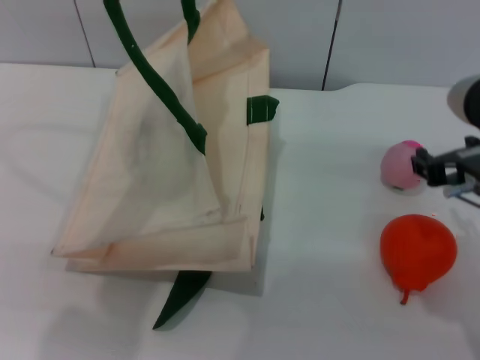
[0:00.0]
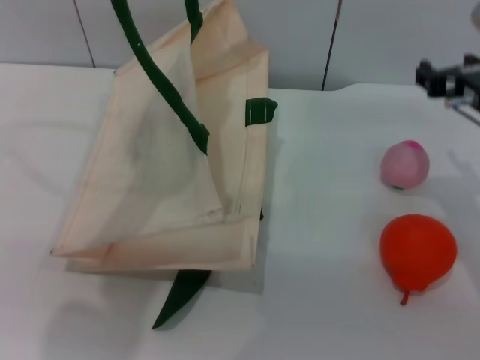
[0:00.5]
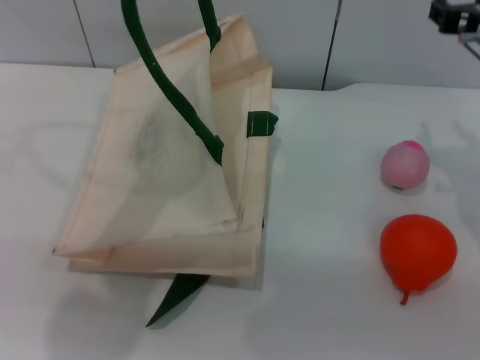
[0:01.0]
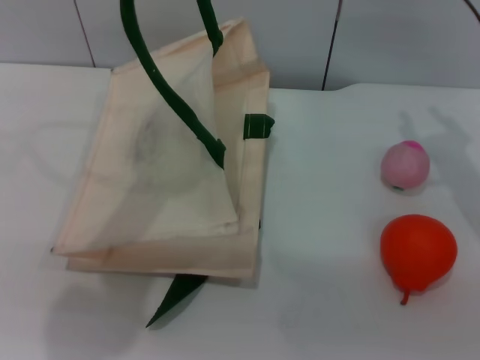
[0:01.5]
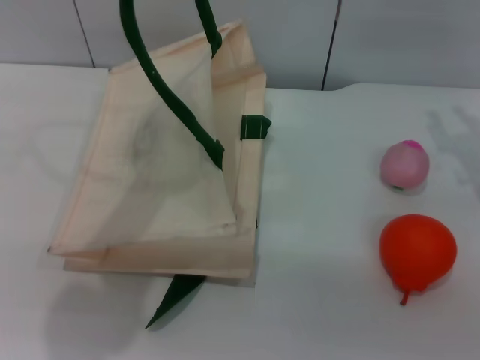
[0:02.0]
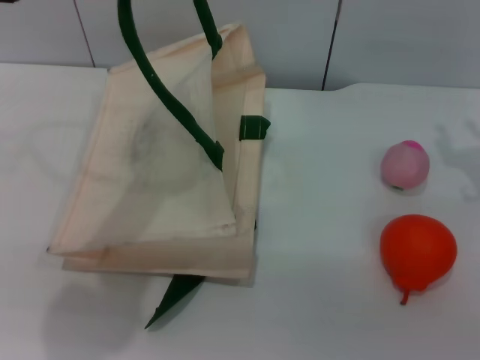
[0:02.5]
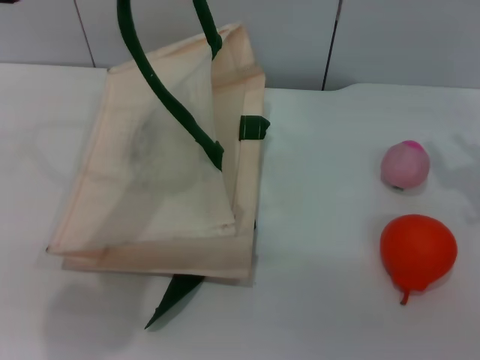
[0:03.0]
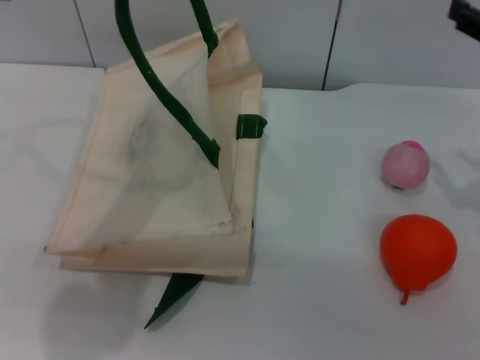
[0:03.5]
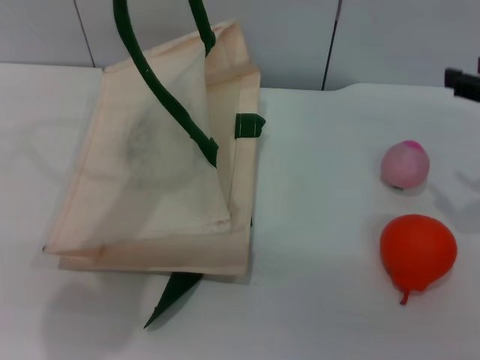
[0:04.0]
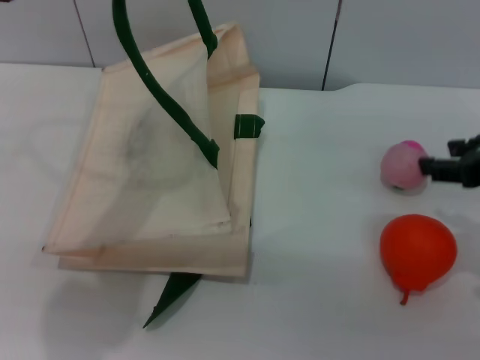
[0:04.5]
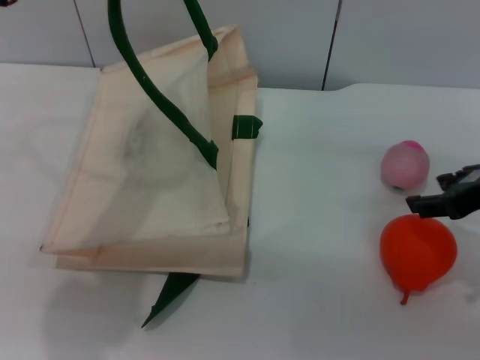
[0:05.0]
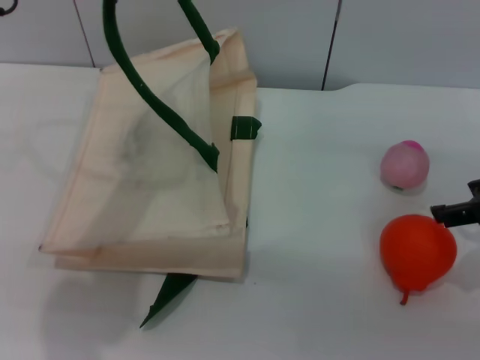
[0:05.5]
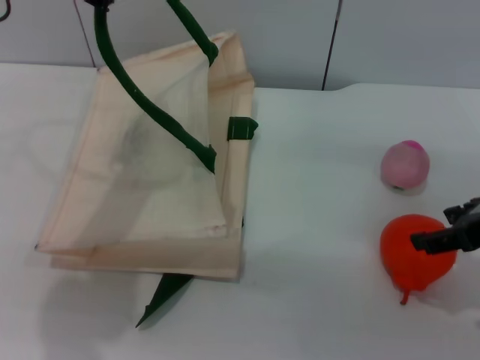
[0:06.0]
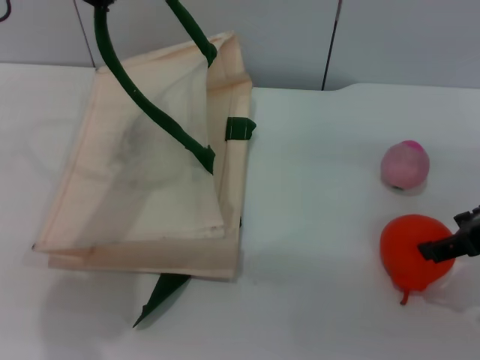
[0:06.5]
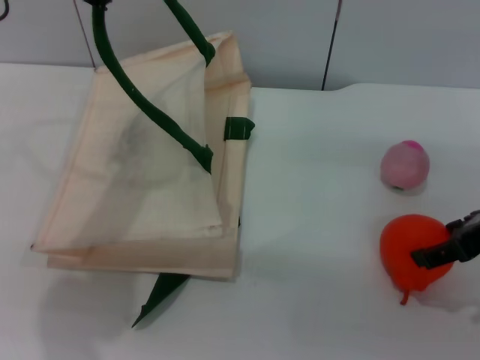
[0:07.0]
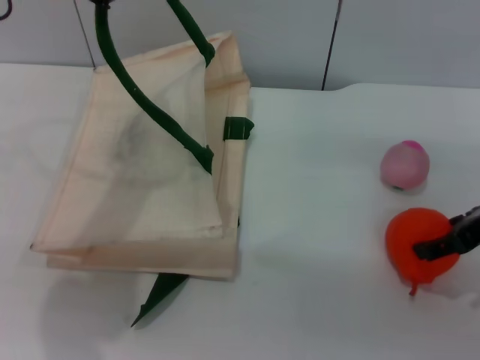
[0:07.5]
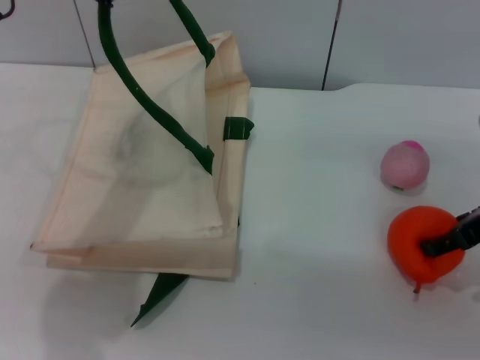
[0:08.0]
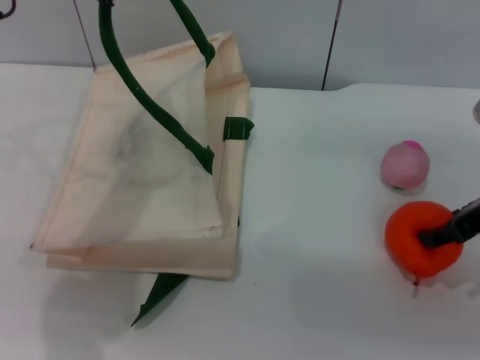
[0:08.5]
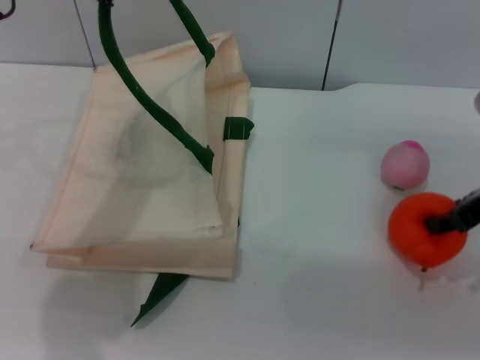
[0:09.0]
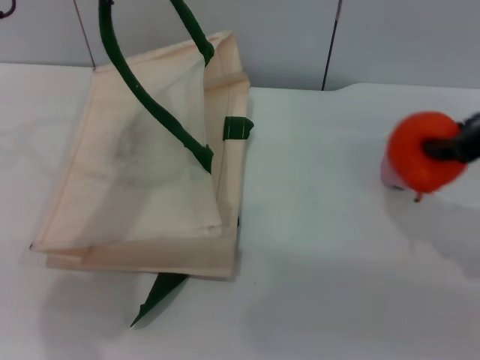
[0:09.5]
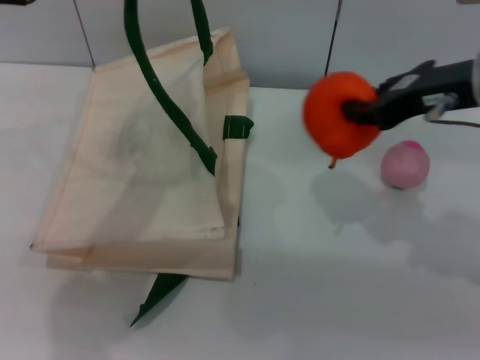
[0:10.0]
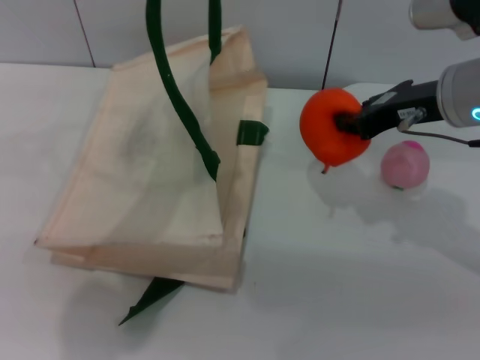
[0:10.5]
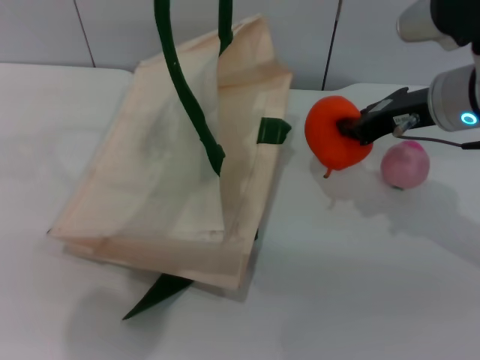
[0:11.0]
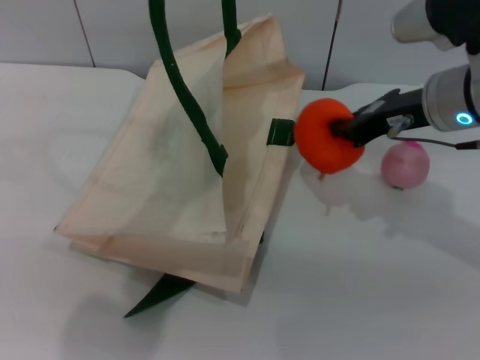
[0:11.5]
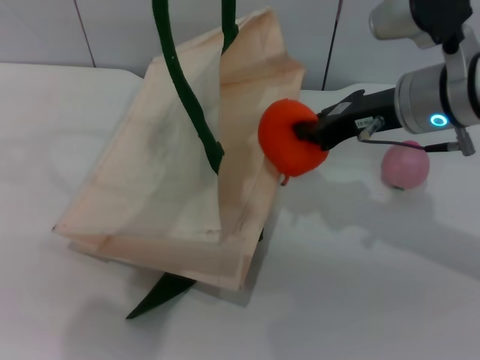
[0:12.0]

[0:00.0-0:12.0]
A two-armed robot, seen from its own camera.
Task of the whole recording: pick up the orange and peach from the table and place it in the white handbag.
Step, 0:00.0 to 0:09.5: Pick up the orange with the right gripper.
0:00.0 to 0:02.0: The right gripper goes some 15 cm forward and to the right.
0:02.0 to 0:04.0: The right gripper heads backward, covering some 10 cm.
0:06.0 to 0:08.0: The grippers make only small movements.
0:08.0 to 0:10.0: The right gripper moves upward and to the left, roughly 10 cm, and closes up.
0:10.0 to 0:12.0: The right gripper travels downward by some 5 cm, and closes. The left gripper ends up approximately 5 cm from where it was.

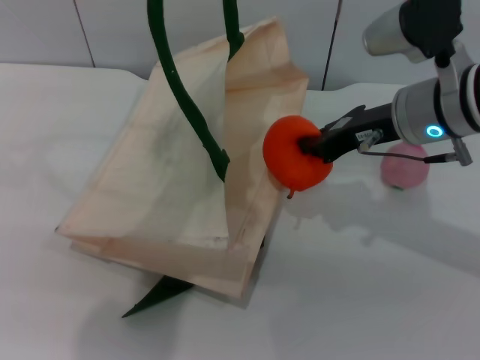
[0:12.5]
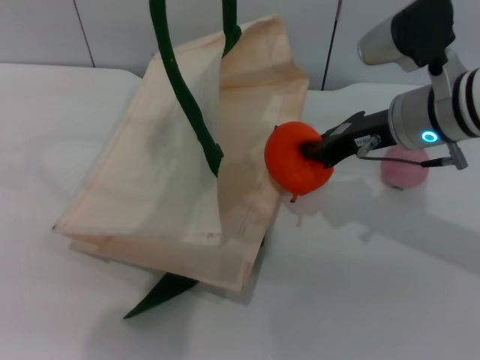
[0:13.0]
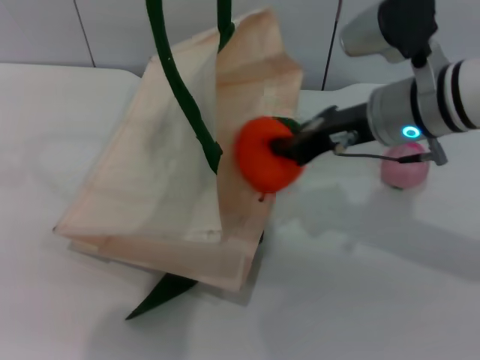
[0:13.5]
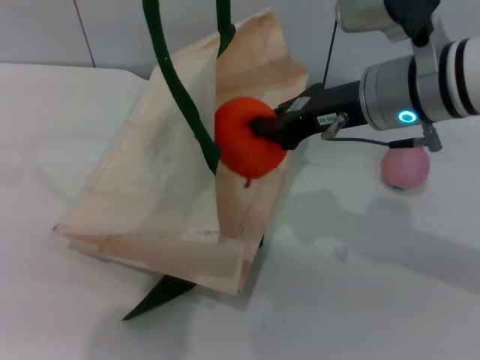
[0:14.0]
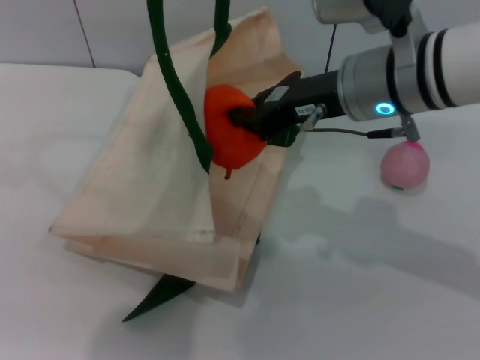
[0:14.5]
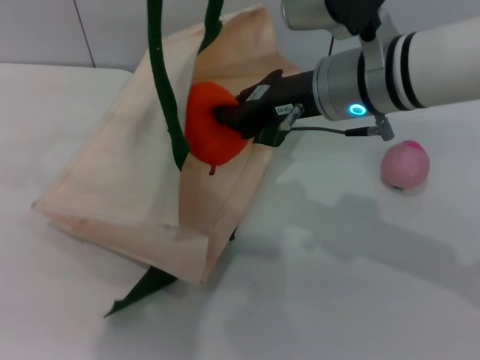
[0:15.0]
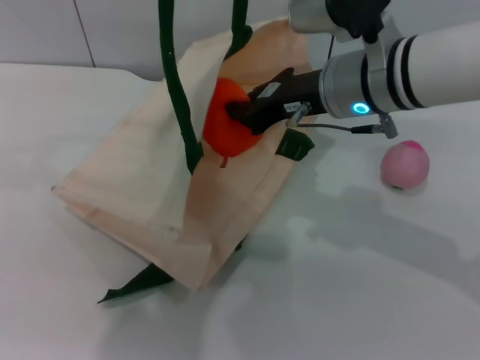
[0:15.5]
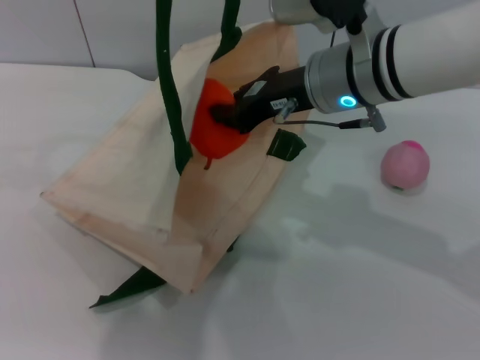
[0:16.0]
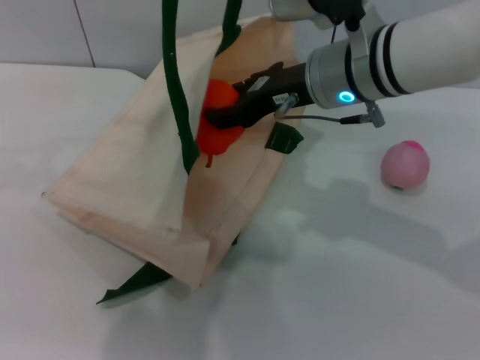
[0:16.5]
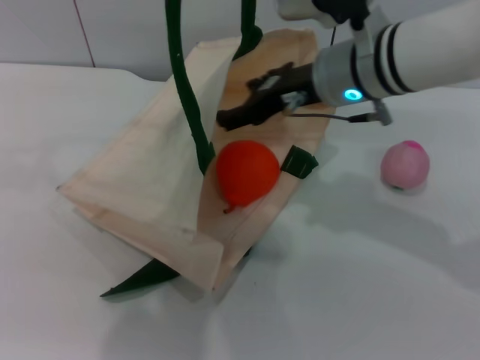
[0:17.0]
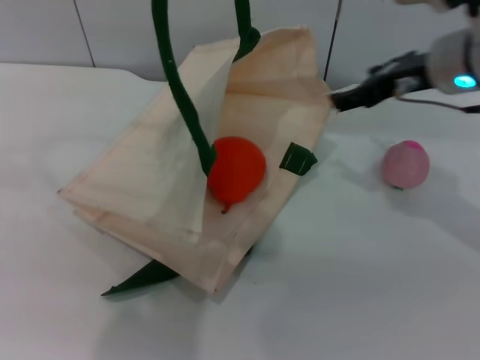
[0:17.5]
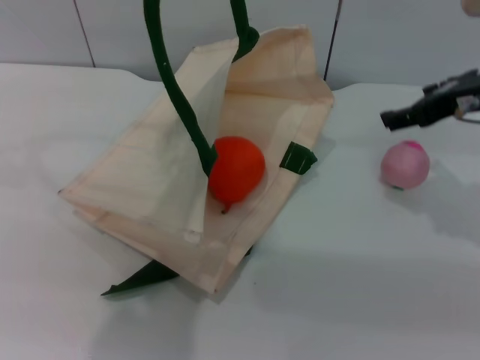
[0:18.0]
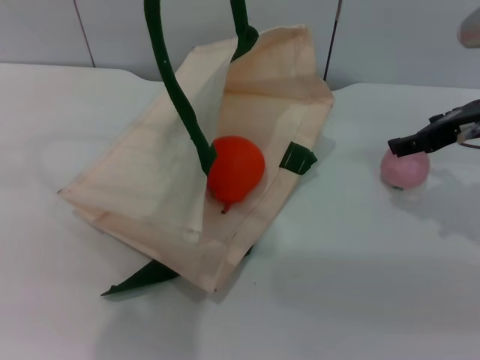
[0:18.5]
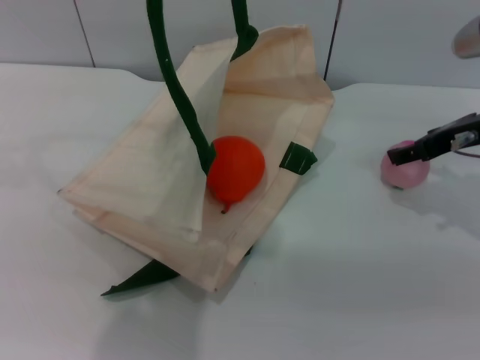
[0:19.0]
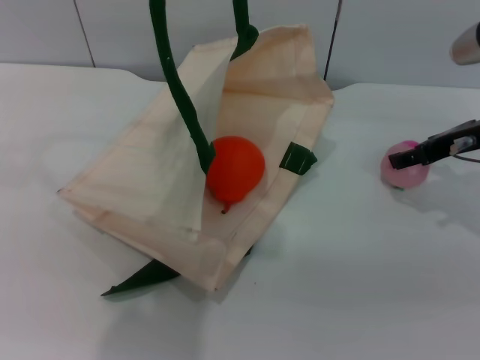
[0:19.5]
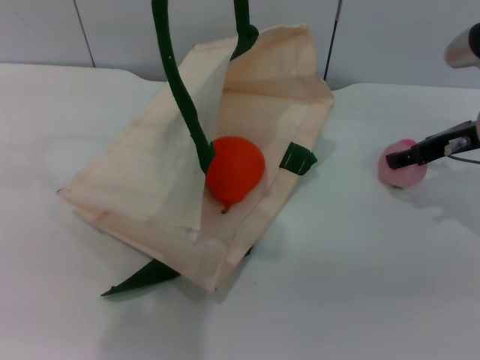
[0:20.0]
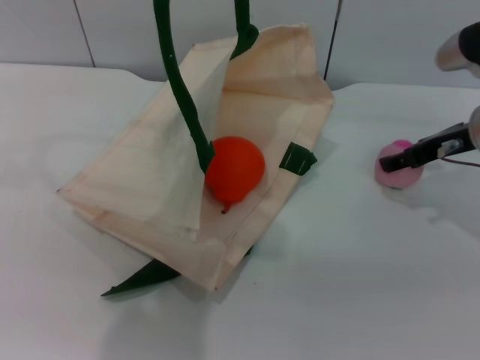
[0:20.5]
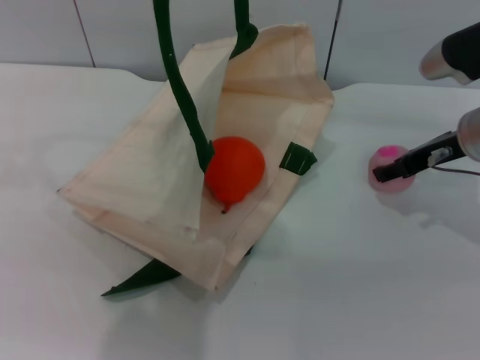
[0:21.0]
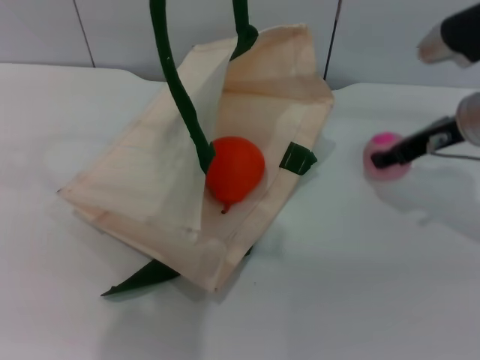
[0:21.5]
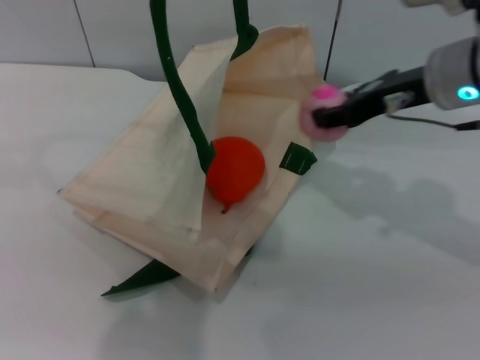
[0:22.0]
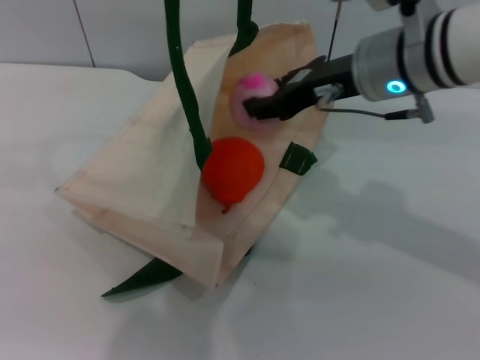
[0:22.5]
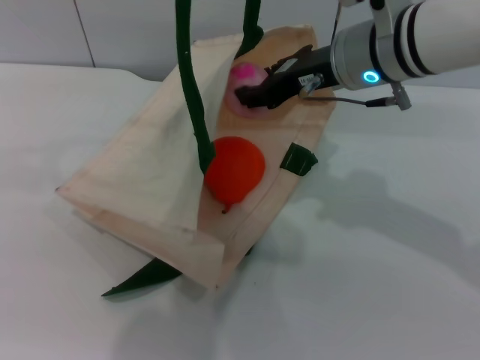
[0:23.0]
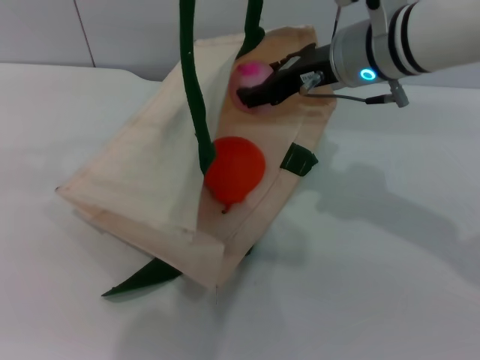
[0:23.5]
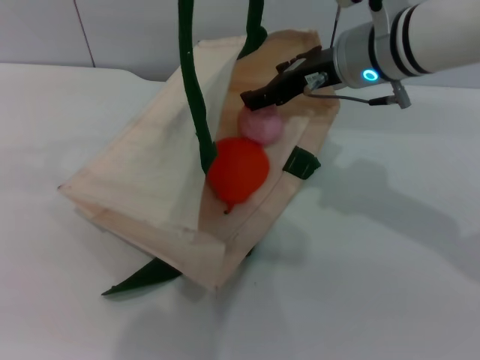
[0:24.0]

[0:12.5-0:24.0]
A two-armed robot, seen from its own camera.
Task of the whole recording: pick up the orange and peach from the table and place it in the white handbag.
Step, 0:12.5 to 0:17.0: Place the orange into the woven bag with the right gripper.
Step, 0:17.5 to 0:21.5: Pick up the peach with the right gripper.
0:12.5 to 0:14.5: The right gripper shifts approximately 5 cm to the left.
0:14.5 to 0:16.5: The right gripper opens up.
0:16.5 to 0:18.5: The right gripper shifts some 15 cm to the right, and opens up.
0:18.5 to 0:20.0: The right gripper changes place by some 5 cm.
0:20.0 to 0:22.0: The right gripper shifts about 10 cm to the left and upward, and closes up.
0:22.0 to 0:24.0: The right gripper goes approximately 5 cm to the left, and opens.

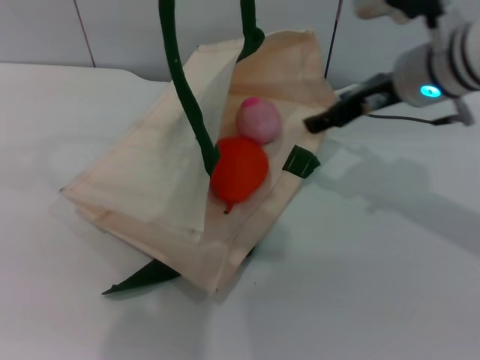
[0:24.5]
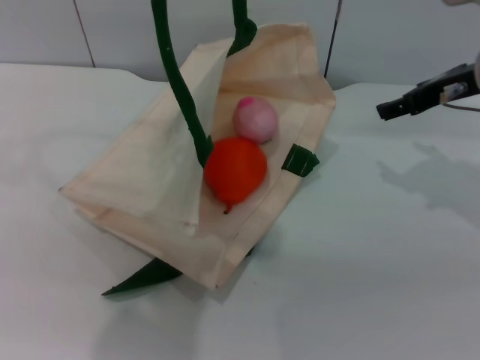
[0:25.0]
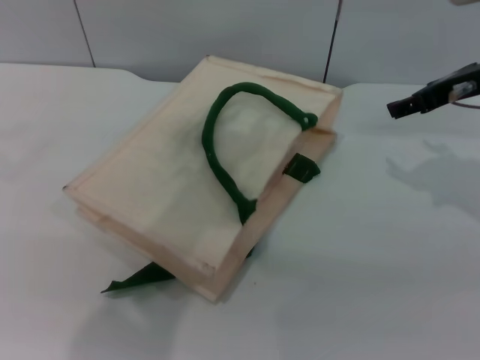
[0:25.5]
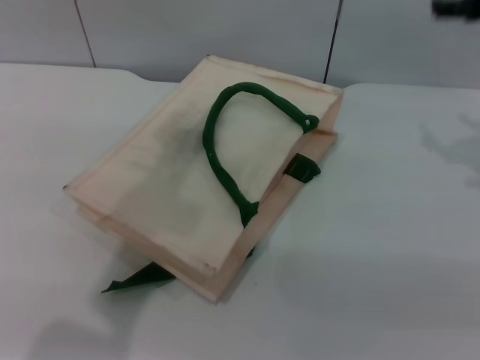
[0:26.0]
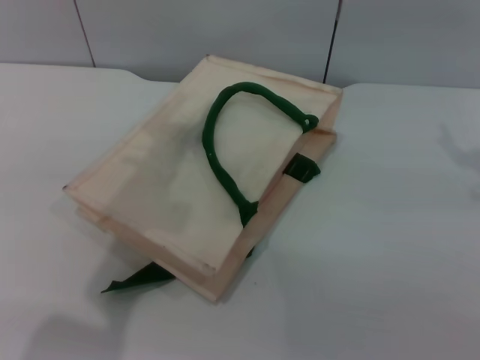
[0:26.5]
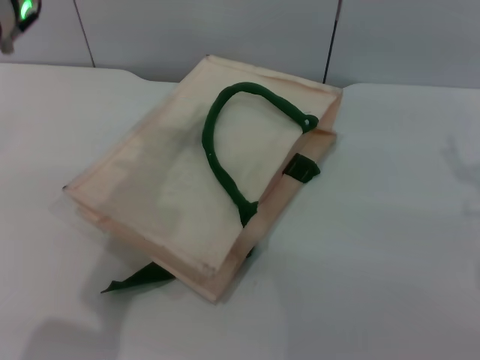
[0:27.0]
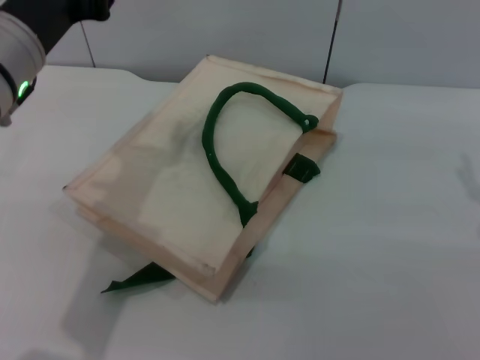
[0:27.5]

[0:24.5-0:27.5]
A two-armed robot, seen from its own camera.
Task of the whole recording: pick up the orange and peach from the table and place it in the white handbag.
Step, 0:25.0 to 0:26.0: Lower the woven bag with the left gripper to close it.
0:24.5 to 0:26.0: The left gripper shifts approximately 5 cm to the left, and opens its fingers. The right gripper travels to the right and upward by some 10 cm.
0:26.0 to 0:27.5: The left gripper goes about 15 cm downward.
